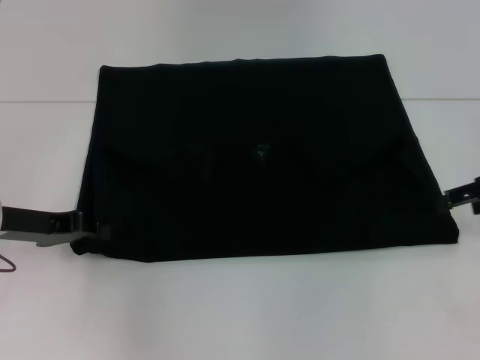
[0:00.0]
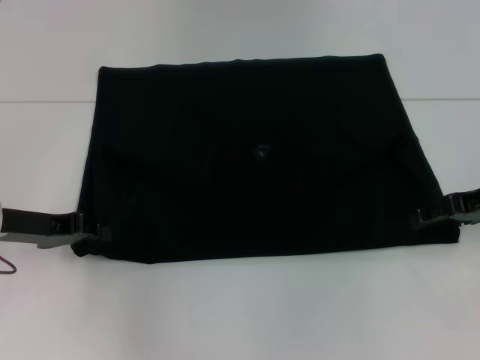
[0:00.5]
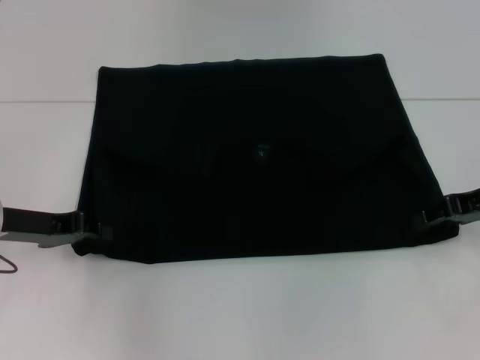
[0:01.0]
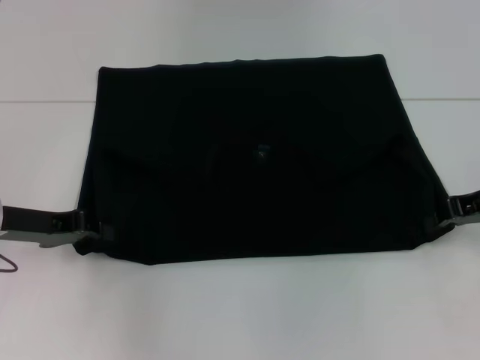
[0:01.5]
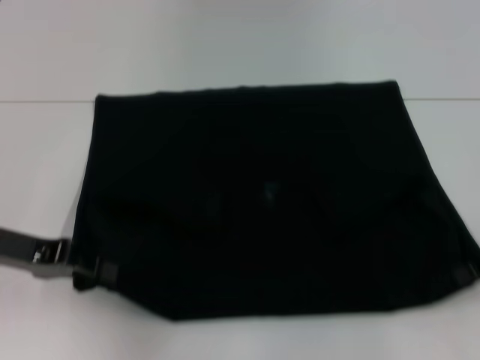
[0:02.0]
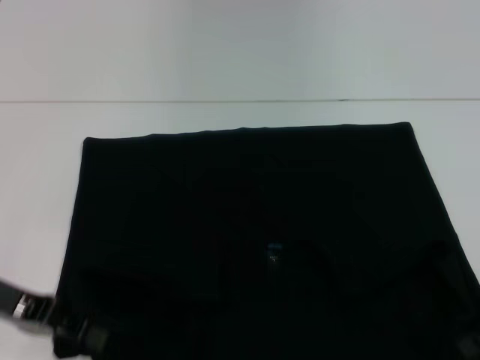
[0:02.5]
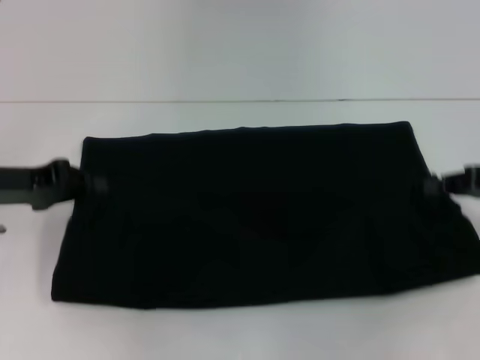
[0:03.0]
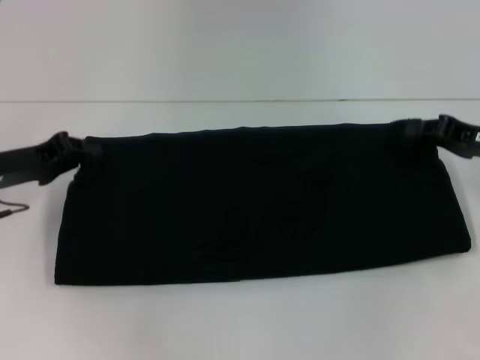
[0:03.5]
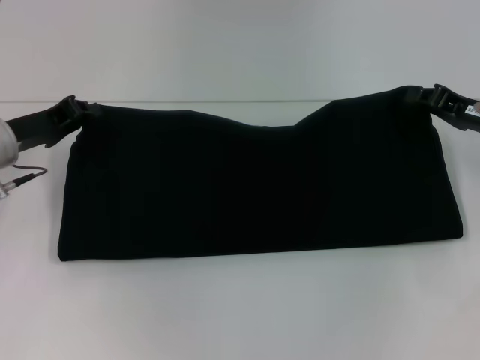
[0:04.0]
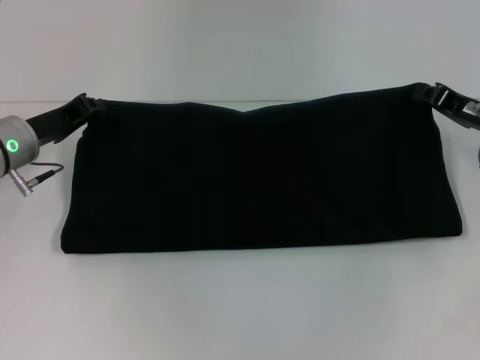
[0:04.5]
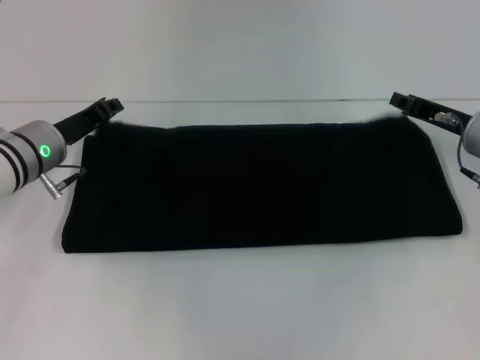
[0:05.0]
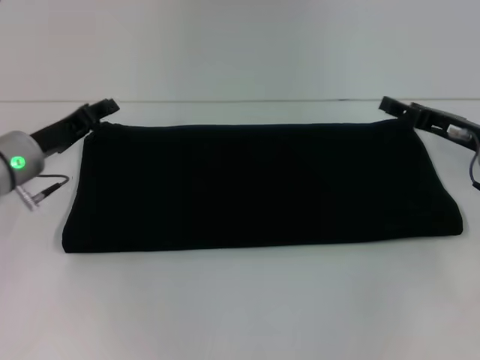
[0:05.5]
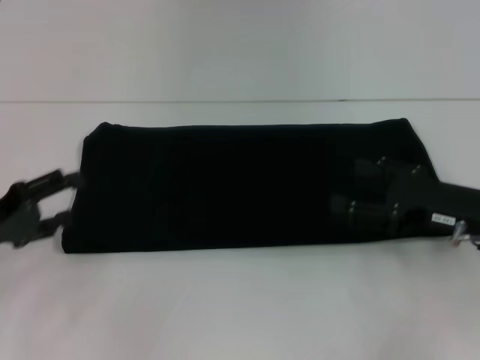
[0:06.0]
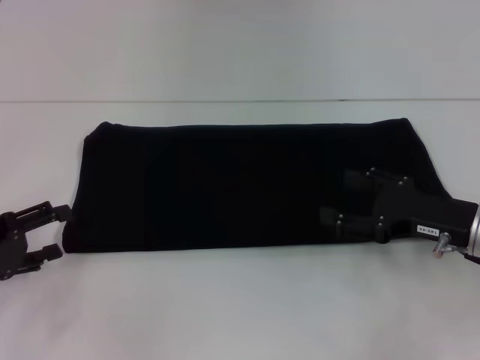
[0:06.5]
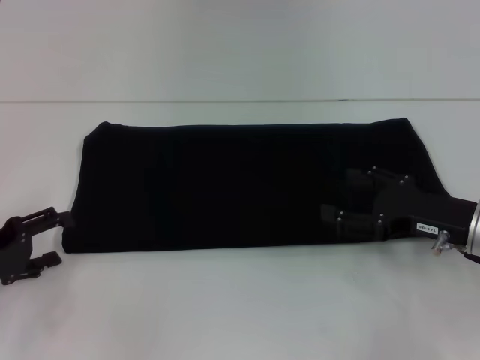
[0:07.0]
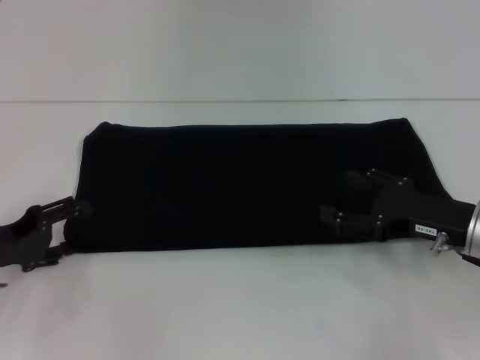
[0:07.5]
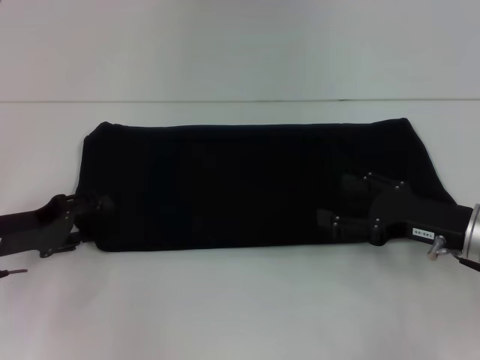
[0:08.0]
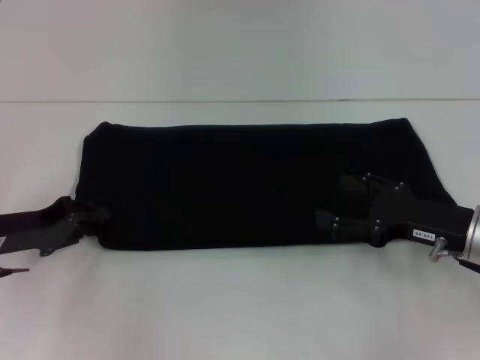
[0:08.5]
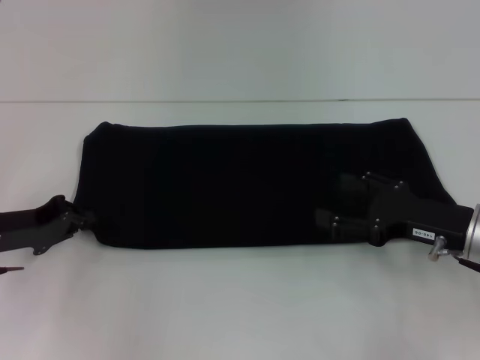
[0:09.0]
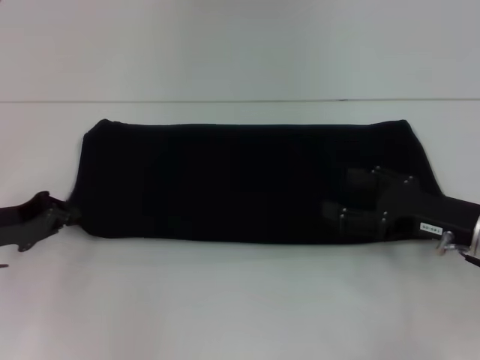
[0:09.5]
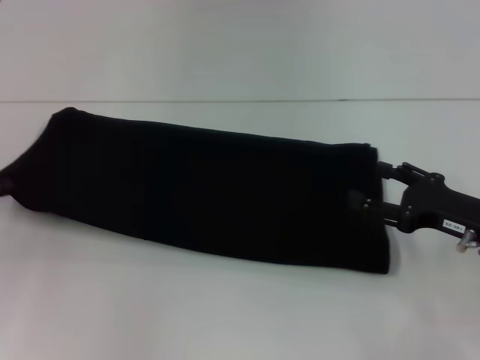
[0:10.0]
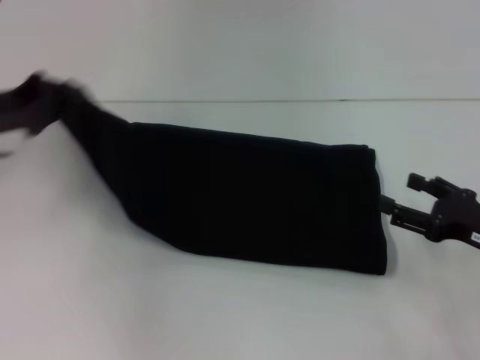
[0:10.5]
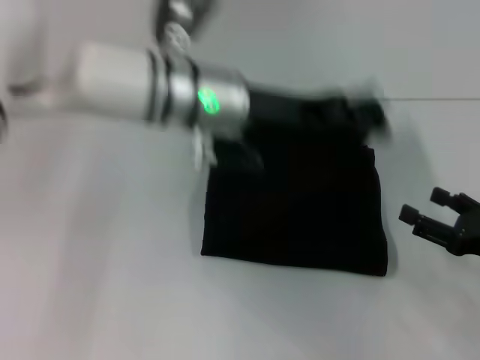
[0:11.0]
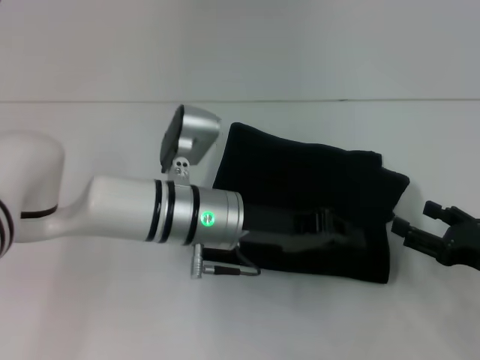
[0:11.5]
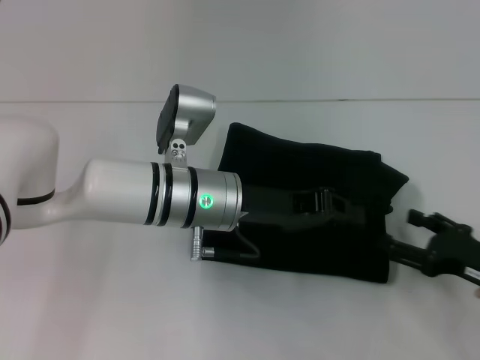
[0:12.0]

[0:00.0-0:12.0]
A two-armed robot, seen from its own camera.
Step, 0:00.0 to 0:02.0: Pull the clothes with your left hand.
Step, 0:00.0 to 0:02.0: Pull the clothes with your right hand.
Step, 0:02.5 to 0:05.0: Fold the clothes with your right hand.
0:00.0 to 0:02.0: The right gripper closes up.
0:02.0 to 0:04.0: The two grippers go approximately 5 cm forward.
0:04.0 to 0:06.0: The grippers both shift backward by roughly 10 cm. The right gripper opens. The left gripper opens up.
0:06.0 to 0:08.0: There are only small adjustments of the grippers.
0:08.0 to 0:10.0: The left gripper moves to the left, approximately 5 cm, and closes up.
0:10.0 to 0:12.0: The left gripper heads to the right, covering about 30 cm; the right gripper shifts by about 5 cm.

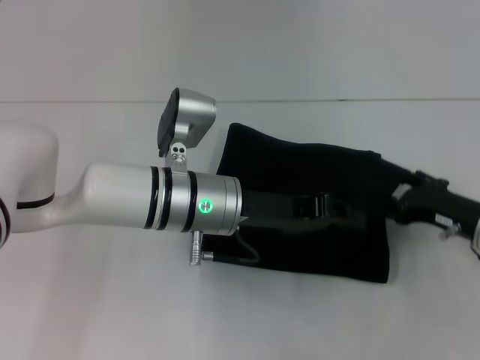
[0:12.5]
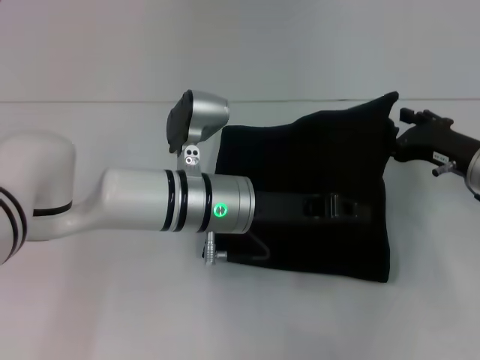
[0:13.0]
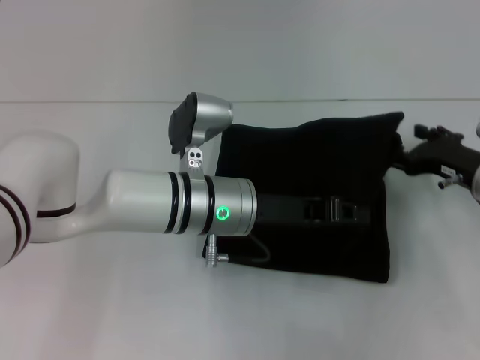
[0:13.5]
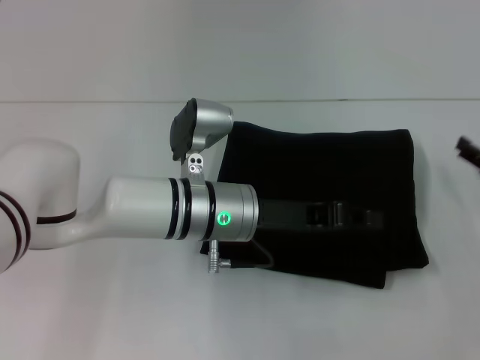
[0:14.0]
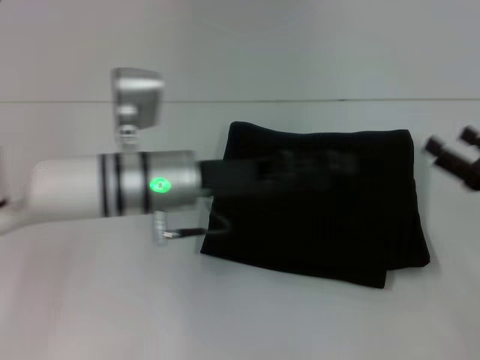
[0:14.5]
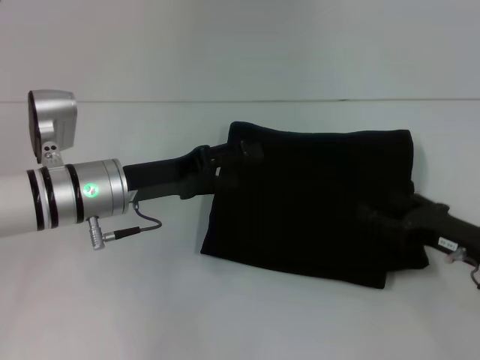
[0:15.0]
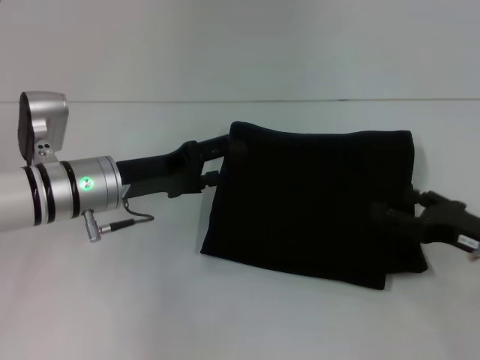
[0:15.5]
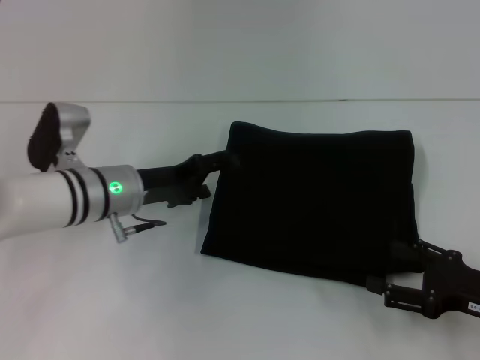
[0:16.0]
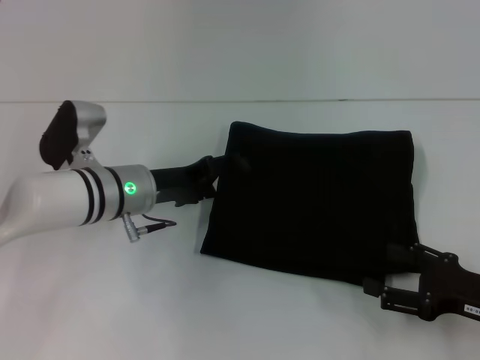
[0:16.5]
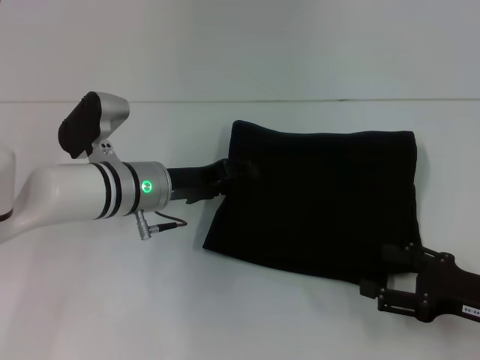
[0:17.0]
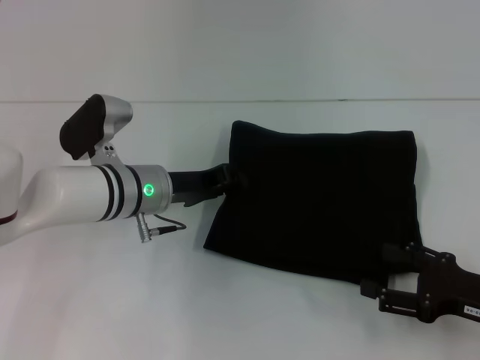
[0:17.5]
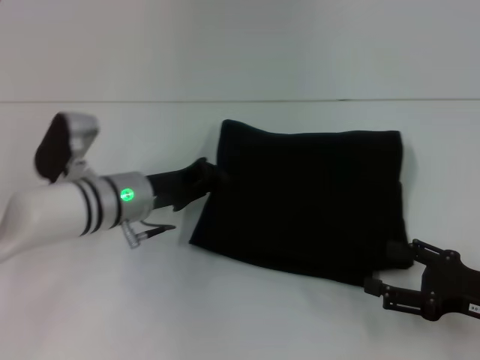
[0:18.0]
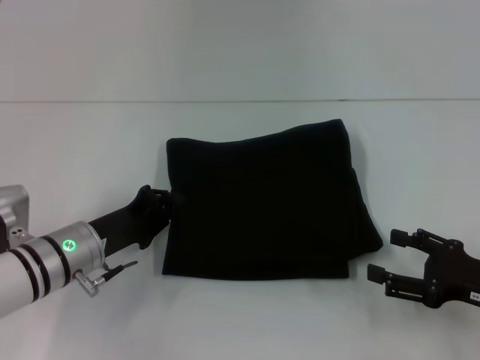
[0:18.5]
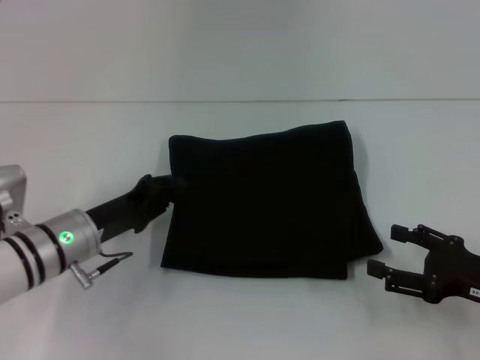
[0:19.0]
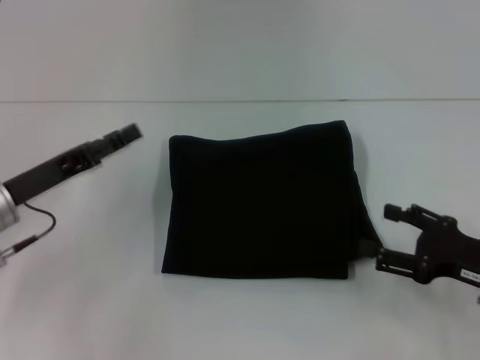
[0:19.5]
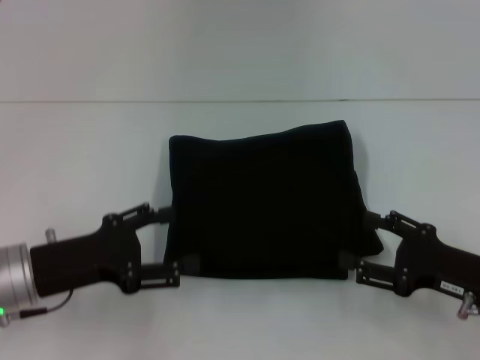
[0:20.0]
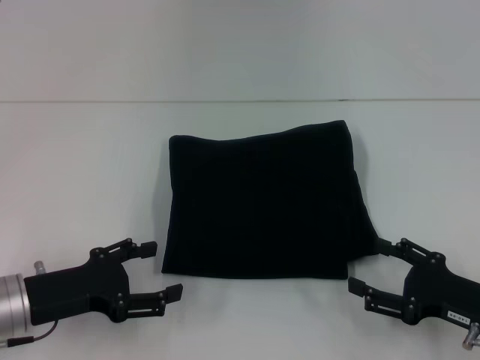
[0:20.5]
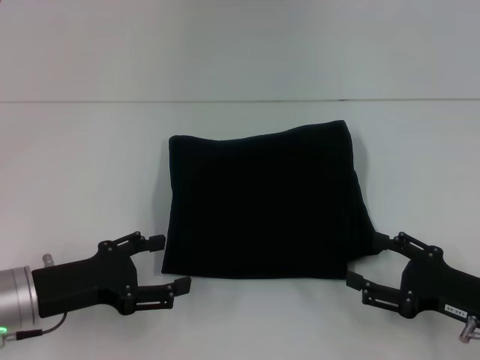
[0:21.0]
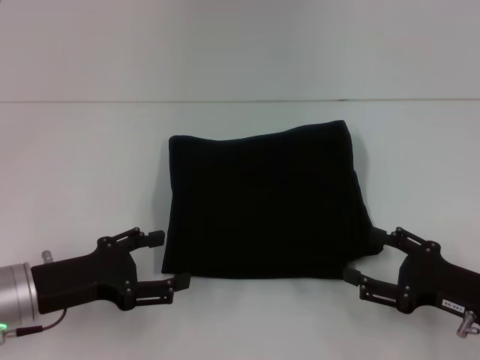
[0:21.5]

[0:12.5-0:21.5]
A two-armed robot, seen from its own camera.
0:12.5 to 0:14.5: The left gripper opens up. Meanwhile the right gripper ends up roughly 5 cm from where it was.
0:14.5 to 0:17.0: The right gripper moves backward, some 5 cm. Meanwhile the left gripper changes place by some 5 cm, and opens.
0:17.0 to 0:19.5: The left gripper travels to the left and backward by approximately 15 cm, and closes up.
0:19.5 to 0:21.5: The left gripper goes some 5 cm backward, and opens up.

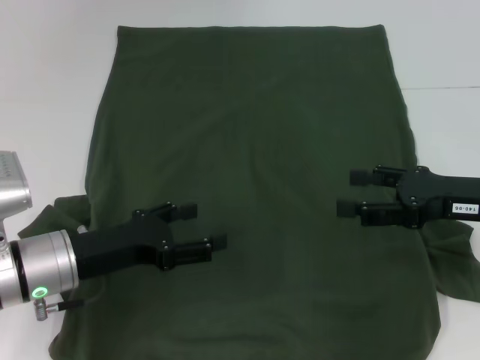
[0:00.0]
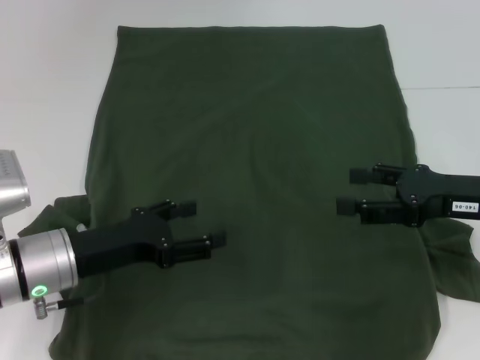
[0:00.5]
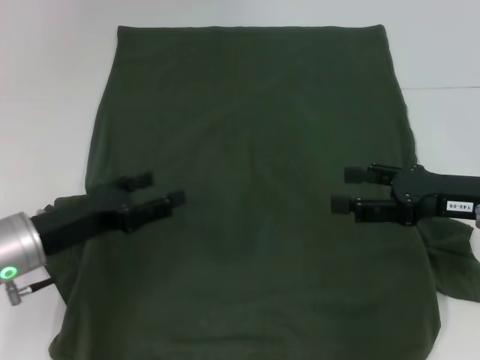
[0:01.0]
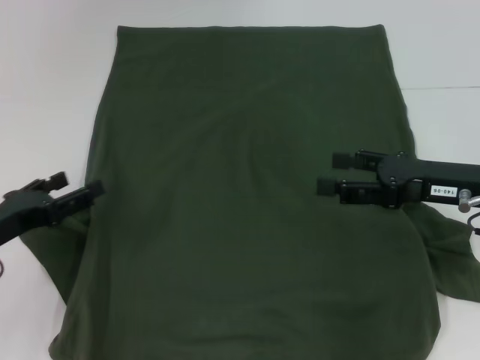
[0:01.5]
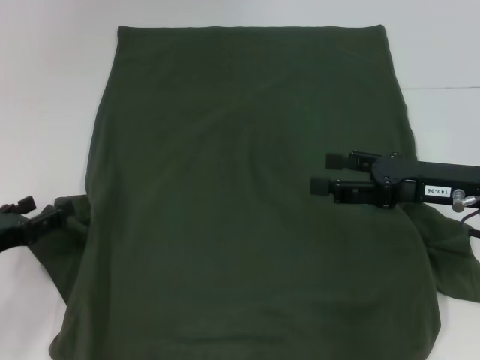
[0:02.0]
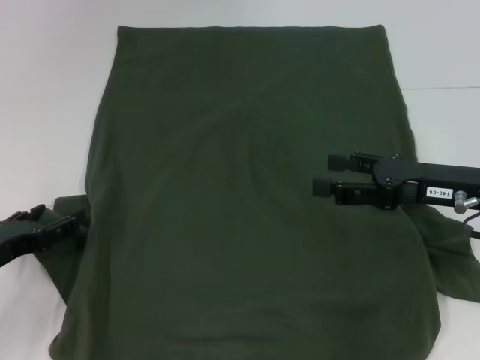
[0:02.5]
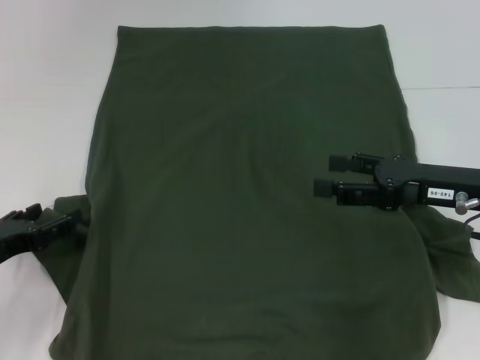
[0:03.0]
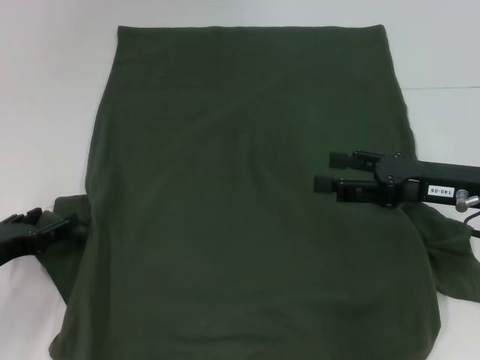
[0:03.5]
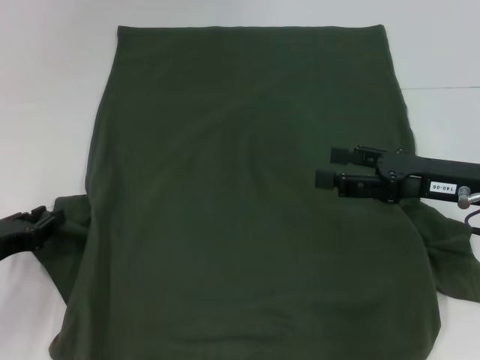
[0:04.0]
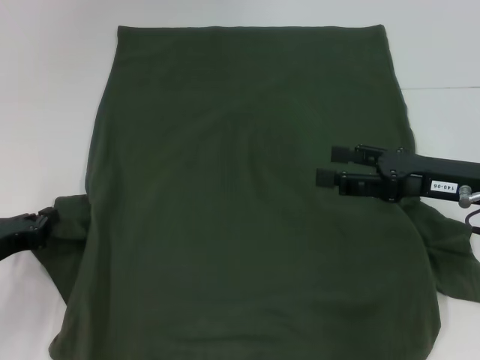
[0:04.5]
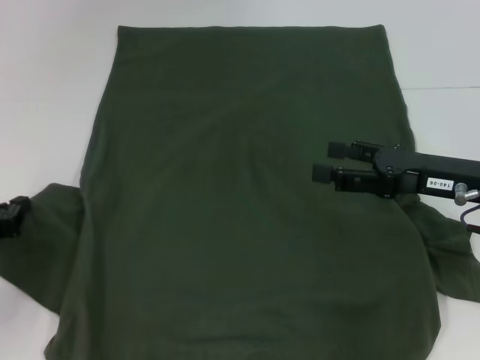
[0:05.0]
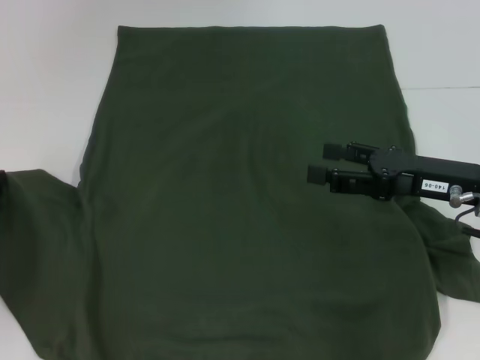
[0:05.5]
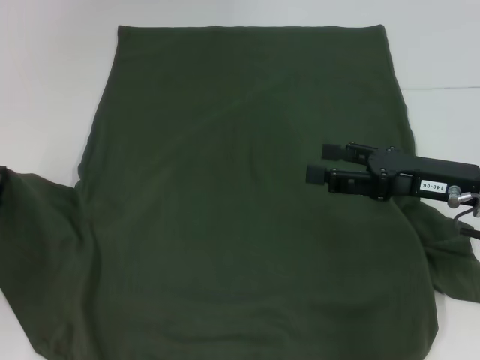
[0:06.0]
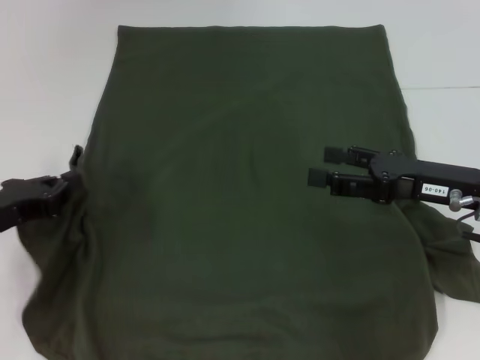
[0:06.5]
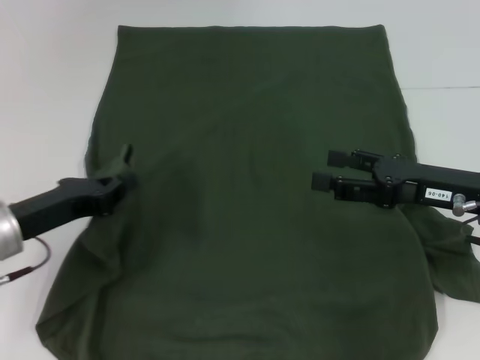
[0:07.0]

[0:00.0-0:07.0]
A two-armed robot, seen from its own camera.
0:00.0 to 0:02.0: The left gripper moves to the left, about 10 cm.
0:02.0 to 0:03.5: The grippers make only small movements.
0:03.5 to 0:05.0: The left gripper closes its fingers.
0:05.0 to 0:07.0: The left gripper heads to the right, covering approximately 5 cm.
